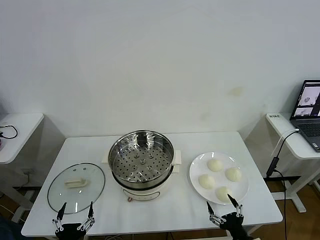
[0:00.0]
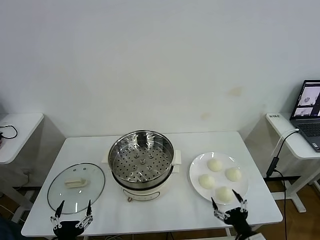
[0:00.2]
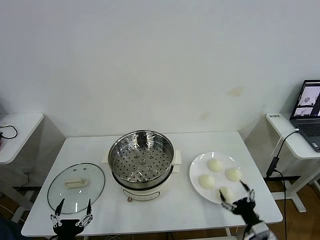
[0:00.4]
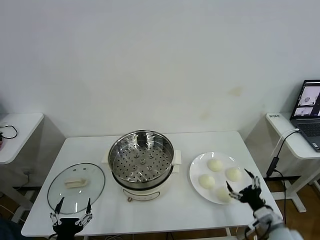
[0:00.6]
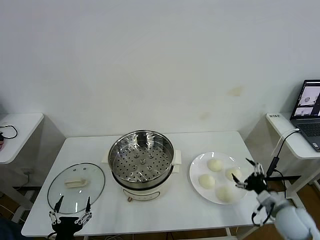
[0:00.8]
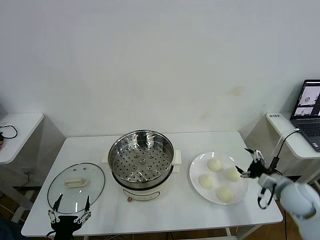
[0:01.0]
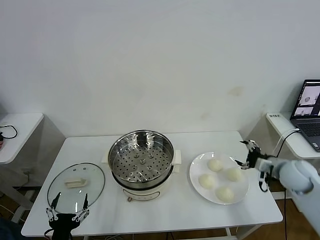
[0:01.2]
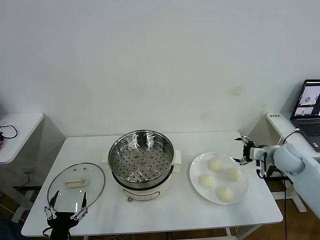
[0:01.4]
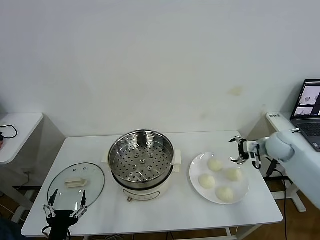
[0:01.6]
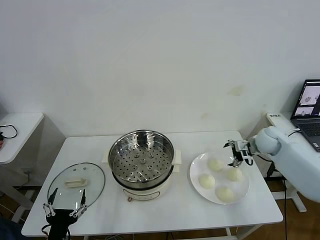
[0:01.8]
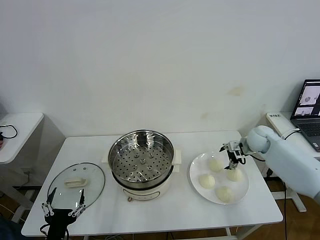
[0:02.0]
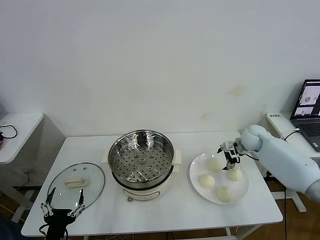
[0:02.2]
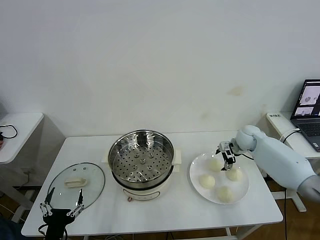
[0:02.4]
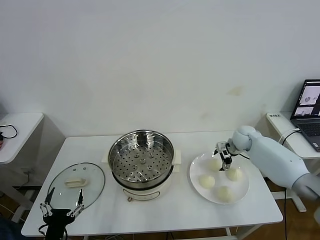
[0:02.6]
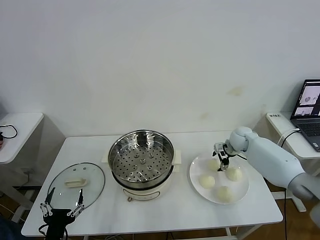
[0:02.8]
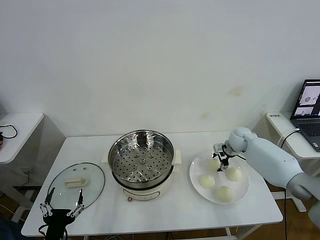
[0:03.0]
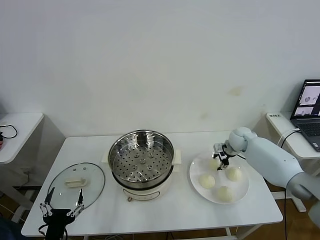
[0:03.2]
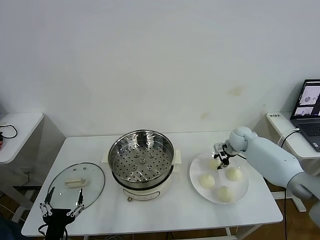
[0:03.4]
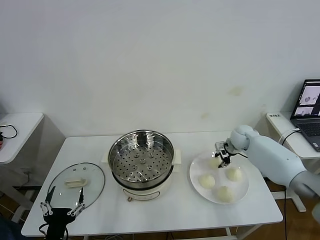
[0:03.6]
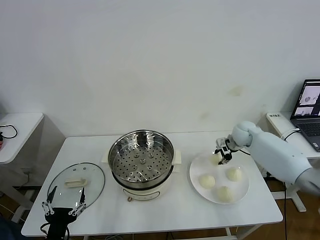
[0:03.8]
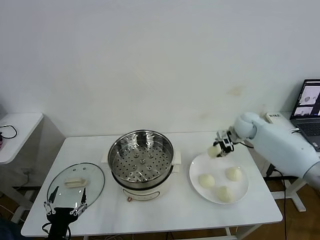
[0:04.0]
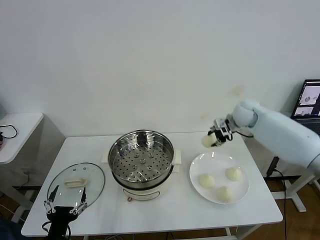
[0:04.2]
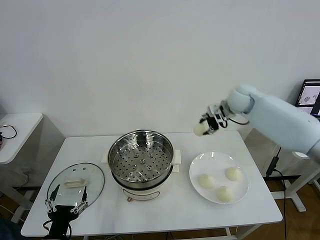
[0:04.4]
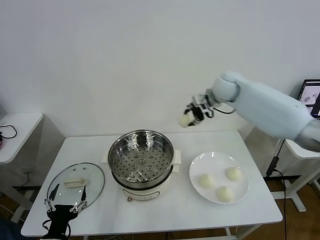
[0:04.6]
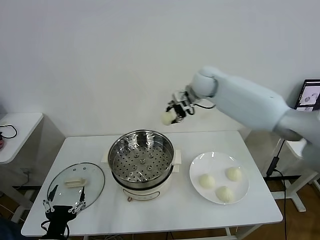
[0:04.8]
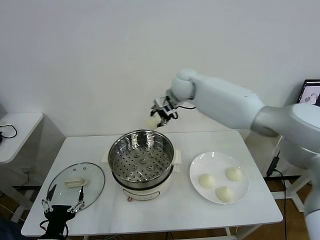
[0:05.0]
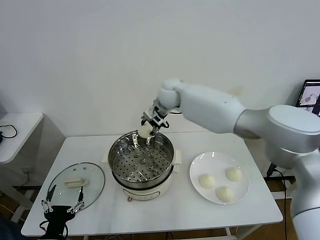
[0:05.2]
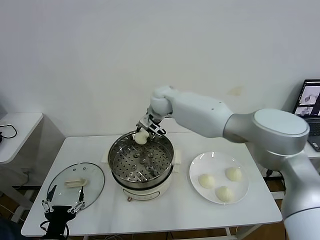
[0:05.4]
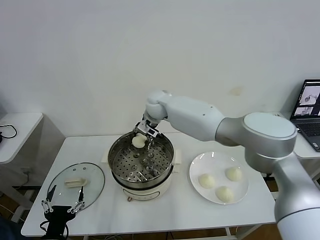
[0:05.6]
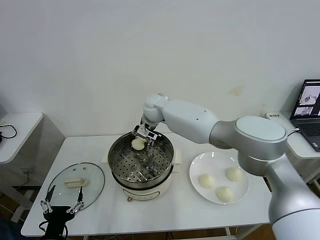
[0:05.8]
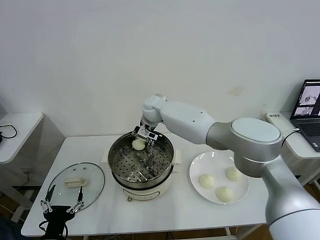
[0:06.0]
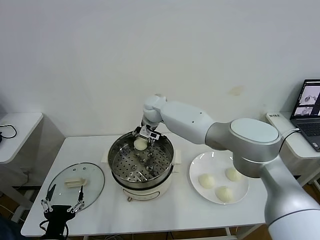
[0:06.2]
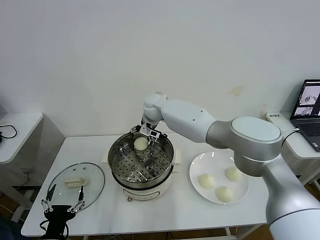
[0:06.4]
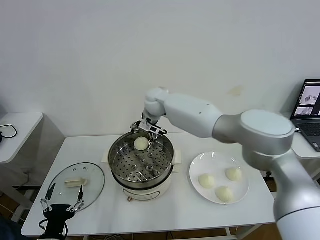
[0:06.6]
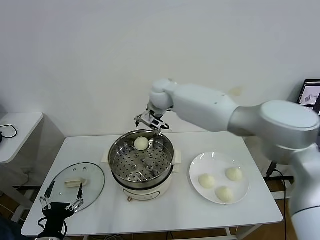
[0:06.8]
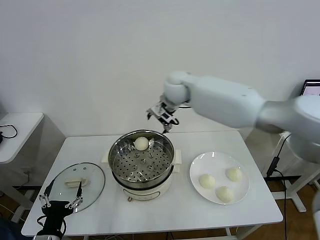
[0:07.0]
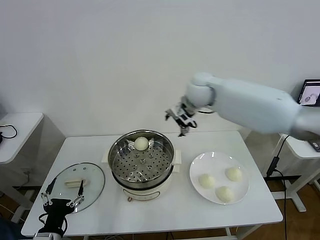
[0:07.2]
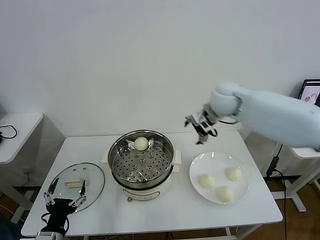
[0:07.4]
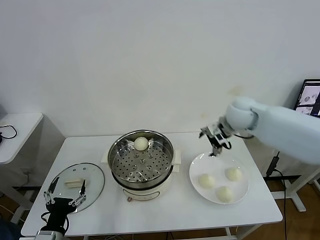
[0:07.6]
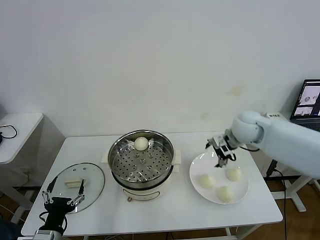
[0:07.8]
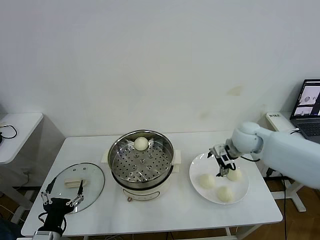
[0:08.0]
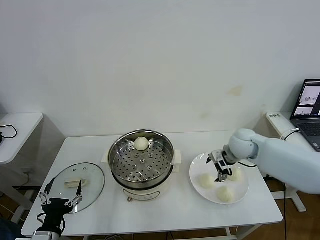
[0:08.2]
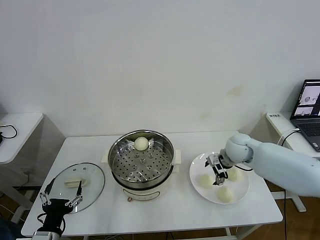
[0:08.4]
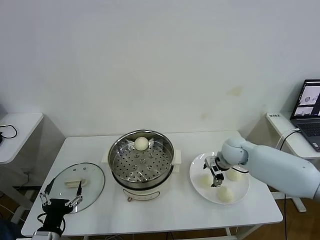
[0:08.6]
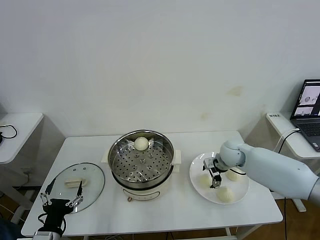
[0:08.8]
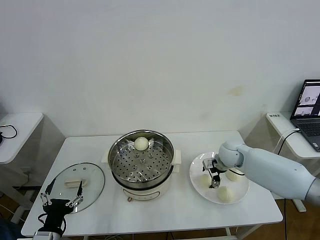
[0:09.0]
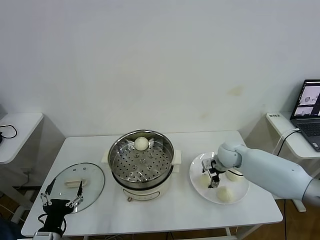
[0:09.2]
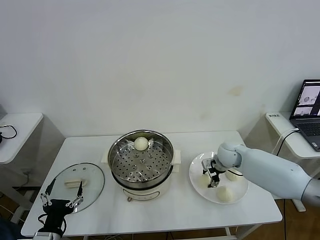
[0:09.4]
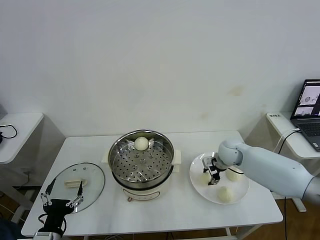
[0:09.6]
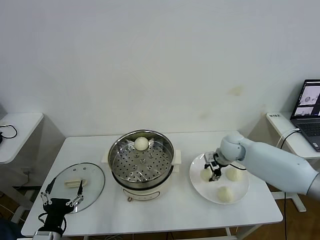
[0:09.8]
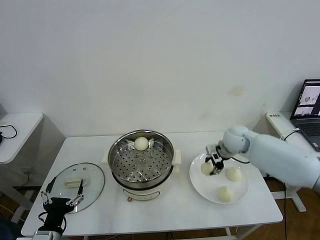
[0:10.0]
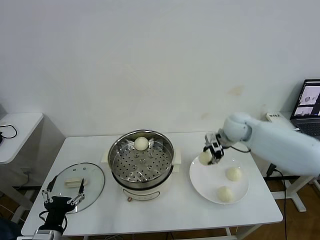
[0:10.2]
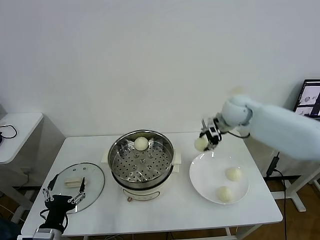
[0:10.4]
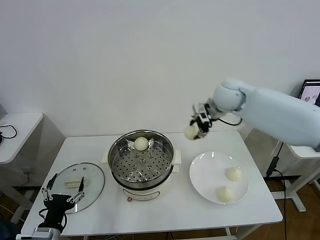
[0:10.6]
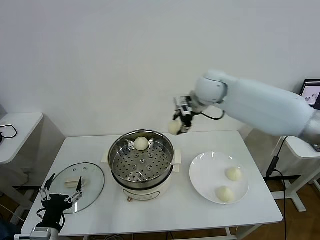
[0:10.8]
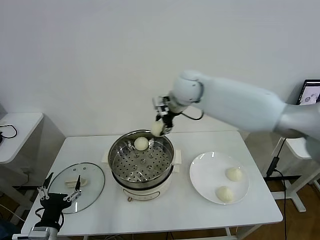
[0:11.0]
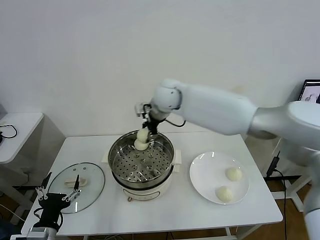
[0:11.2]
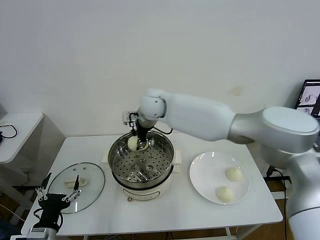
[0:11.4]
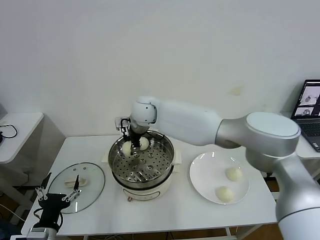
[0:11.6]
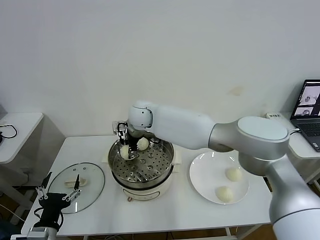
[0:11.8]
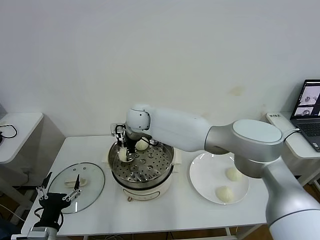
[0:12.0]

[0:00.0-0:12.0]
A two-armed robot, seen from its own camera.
Task of the whole recording: take steamed baozi put them in steamer then cover it.
Step, 0:00.0 to 0:03.4: Grasp the baozi in the plate with right gripper.
Step, 0:03.6 to 0:06.4: Place the baozi on the steamer with right gripper.
Step, 0:06.6 to 0:09.4: Grasp the baozi in the plate with right gripper.
0:01.6 to 0:03.0: The right gripper travels forward, to the left and downward by roughly 15 cm, and closes.
0:03.0 to 0:04.4: The right gripper travels upward by some 20 cm, and closes up.
0:04.4 to 0:06.0: The right gripper shifts some 30 cm to the left.
0:06.0 to 0:07.6: The right gripper is displaced to the right by roughly 30 cm, and opens its fingers.
0:07.6 to 0:09.0: The right gripper is displaced downward by roughly 15 cm.
0:09.0 to 0:10.4: The right gripper moves upward, some 15 cm, and closes its fingers.
0:10.4 to 0:12.0: The right gripper shifts some 30 cm to the left.

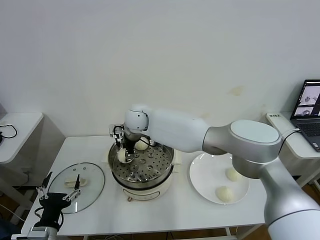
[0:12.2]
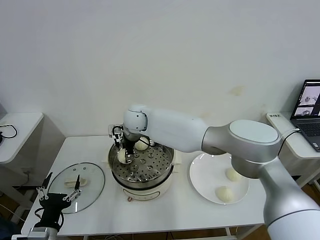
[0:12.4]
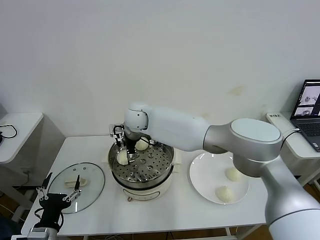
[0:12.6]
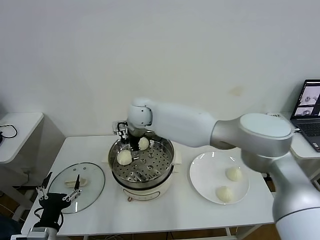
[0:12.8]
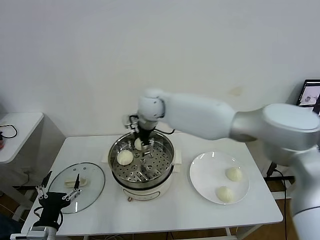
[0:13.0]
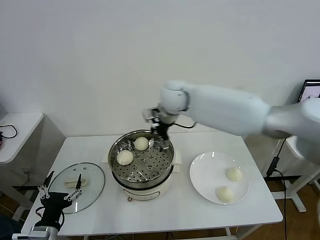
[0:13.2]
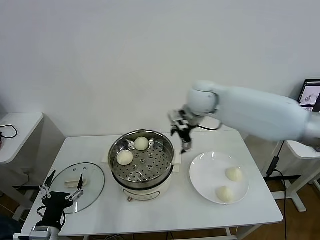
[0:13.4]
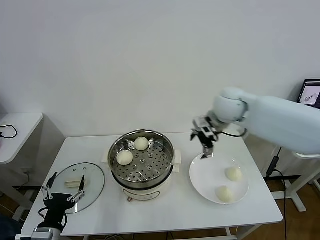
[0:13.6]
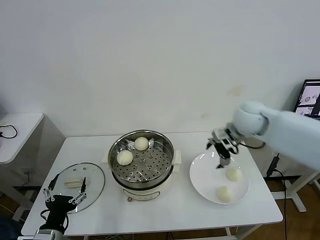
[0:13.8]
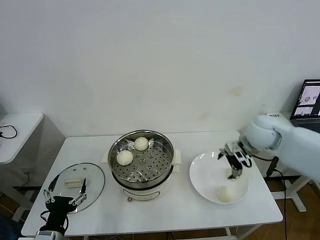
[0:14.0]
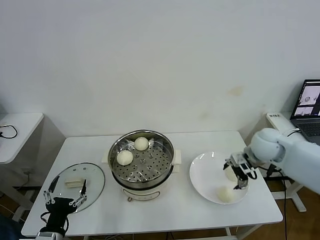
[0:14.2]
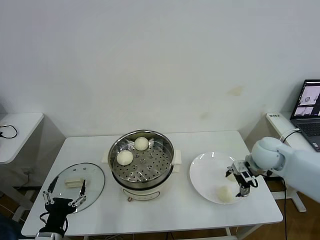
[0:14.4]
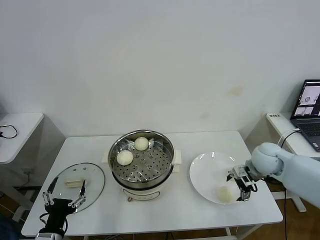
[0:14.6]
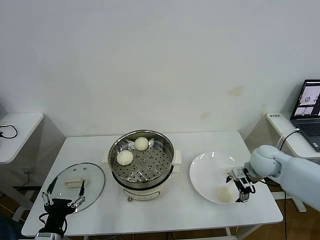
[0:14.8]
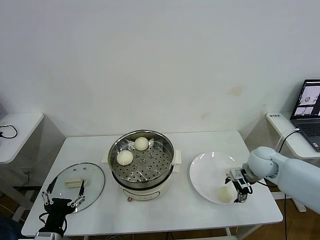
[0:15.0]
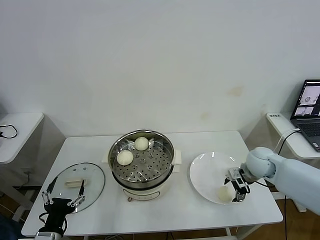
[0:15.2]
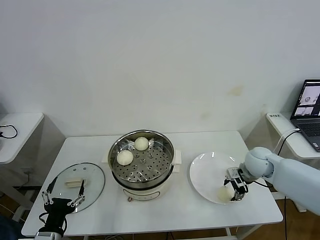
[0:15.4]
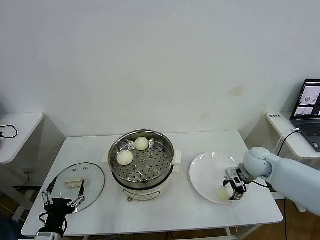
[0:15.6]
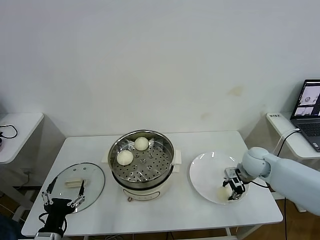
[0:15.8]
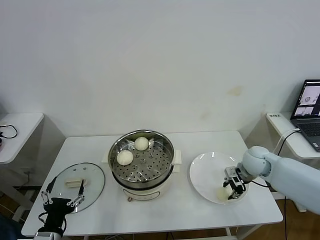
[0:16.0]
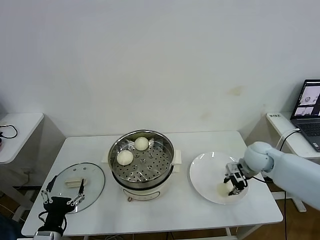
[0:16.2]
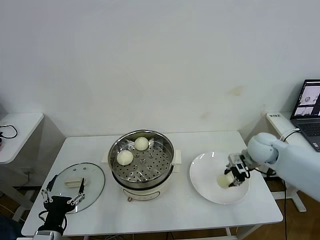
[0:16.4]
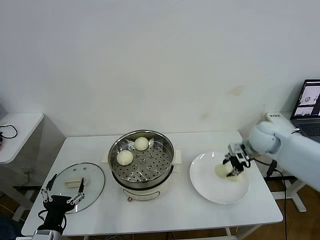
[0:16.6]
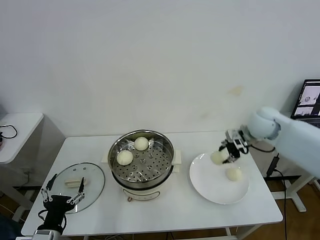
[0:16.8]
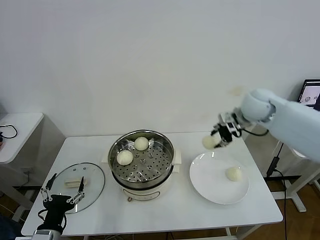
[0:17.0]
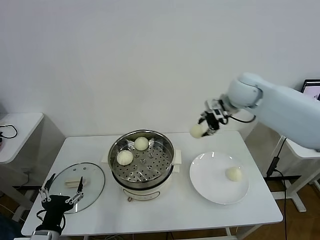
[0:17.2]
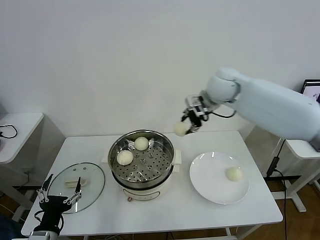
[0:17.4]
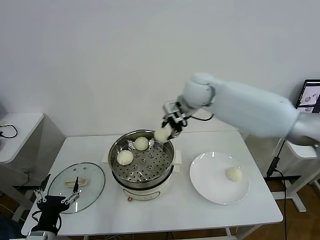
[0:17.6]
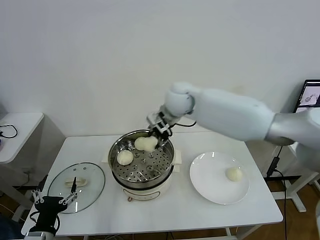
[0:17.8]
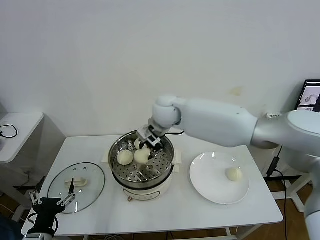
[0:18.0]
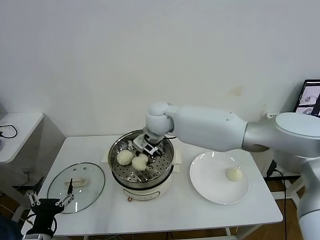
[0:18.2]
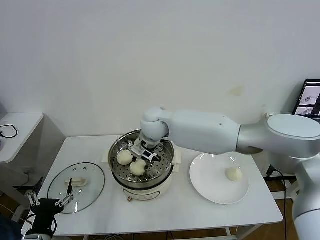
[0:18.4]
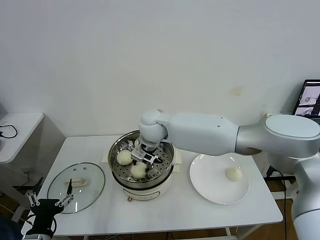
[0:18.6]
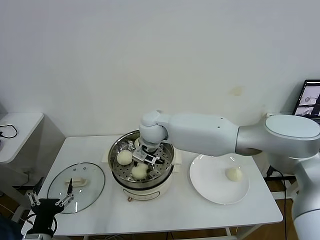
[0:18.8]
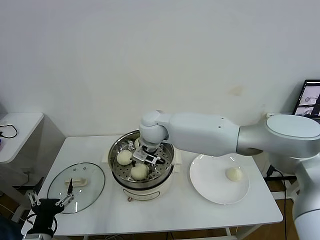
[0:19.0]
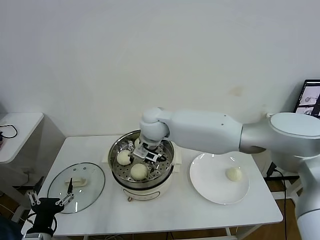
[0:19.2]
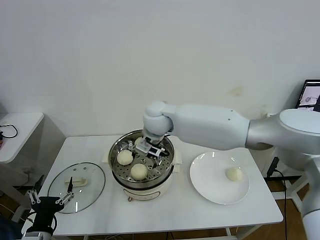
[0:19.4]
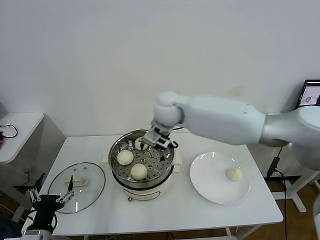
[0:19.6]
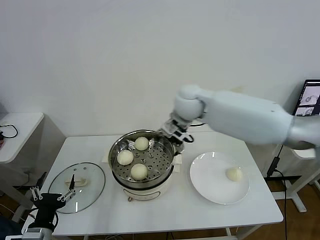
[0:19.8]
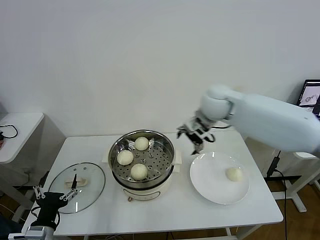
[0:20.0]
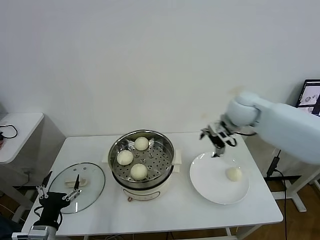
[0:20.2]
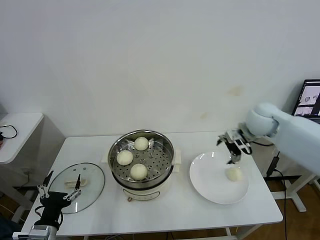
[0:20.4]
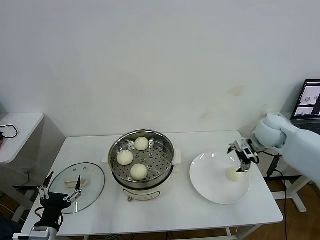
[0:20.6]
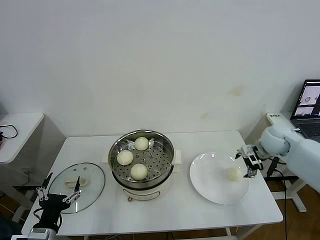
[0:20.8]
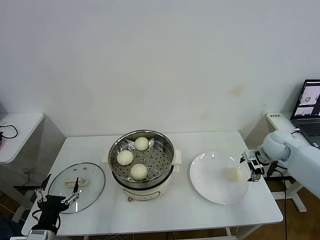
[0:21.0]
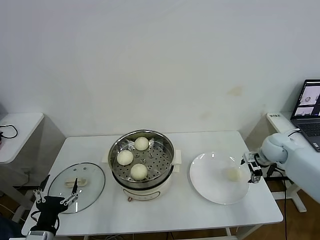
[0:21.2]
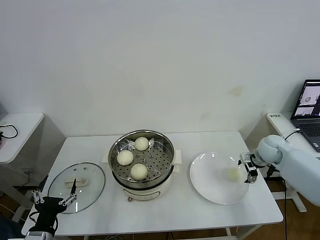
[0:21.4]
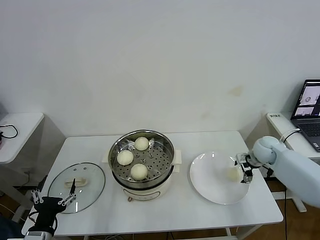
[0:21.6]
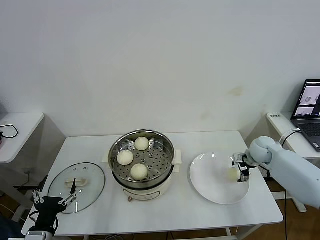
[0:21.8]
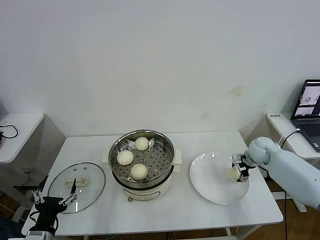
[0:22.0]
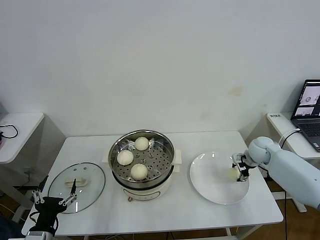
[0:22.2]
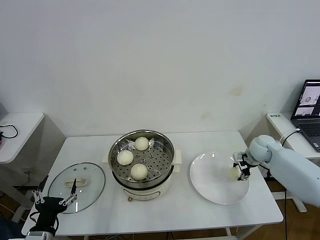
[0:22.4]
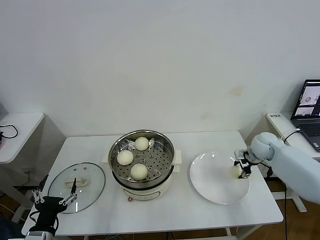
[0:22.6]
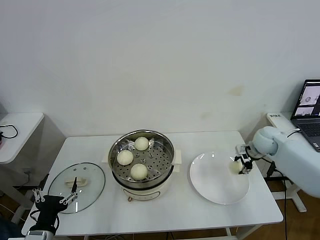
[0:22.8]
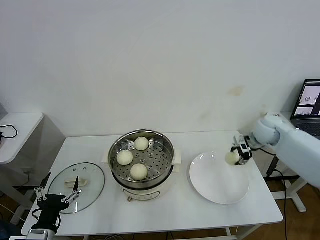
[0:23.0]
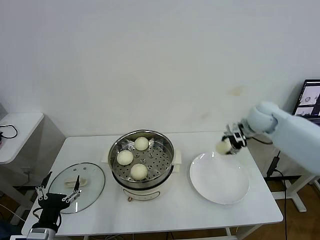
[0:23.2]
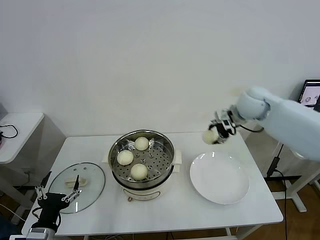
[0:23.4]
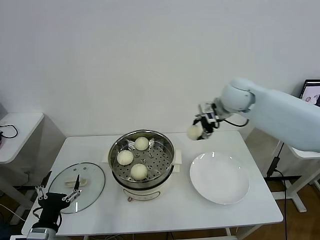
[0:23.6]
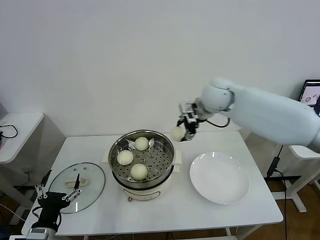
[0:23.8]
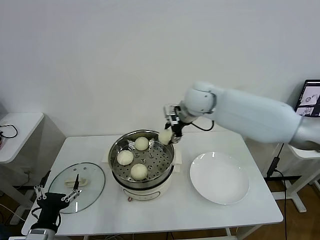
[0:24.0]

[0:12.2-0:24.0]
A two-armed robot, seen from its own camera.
Task of the whole recording: take steamed baozi put them in steamer then cover it.
Step, 0:12.8 to 0:15.8: Grasp the baozi in the plate with right gripper.
Step, 0:16.2 to 0:19.2: Place the baozi on the steamer with right gripper.
Step, 0:19.4 to 0:22.2: Grasp the baozi in the plate with right gripper.
0:12.2 to 0:13.6: The right gripper is displaced to the right by about 30 cm, and opens its fingers.
0:13.6 to 0:15.2: The right gripper heads downward and to the right, covering approximately 25 cm.
0:15.2 to 0:16.6: The right gripper heads upward, covering some 10 cm, and closes up.
0:16.6 to 0:18.2: The right gripper is displaced to the left by some 35 cm.
0:18.2 to 0:19.6: The right gripper opens its fingers.
0:19.6 to 0:21.0: The right gripper is displaced to the right by approximately 40 cm.
0:21.0 to 0:22.6: The right gripper shifts by some 5 cm, and closes its fingers.
0:22.6 to 0:24.0: The right gripper heads to the left and upward, covering about 35 cm.
